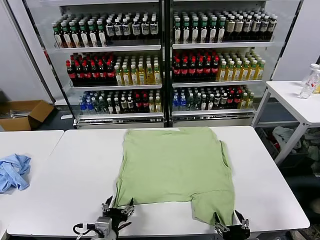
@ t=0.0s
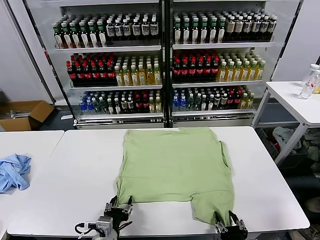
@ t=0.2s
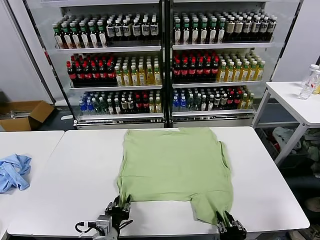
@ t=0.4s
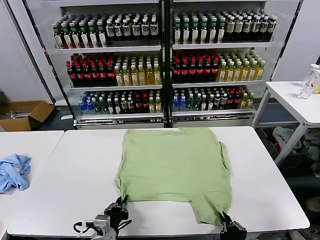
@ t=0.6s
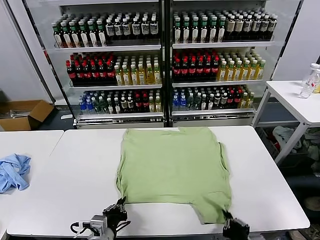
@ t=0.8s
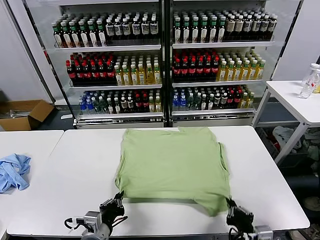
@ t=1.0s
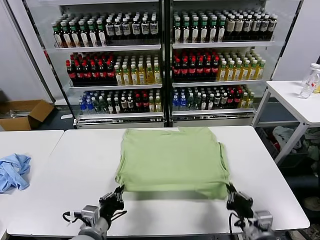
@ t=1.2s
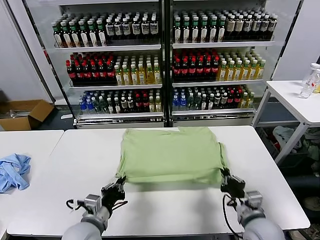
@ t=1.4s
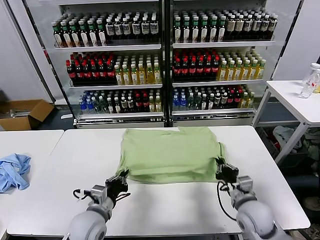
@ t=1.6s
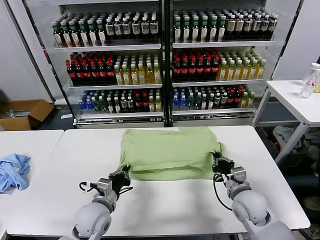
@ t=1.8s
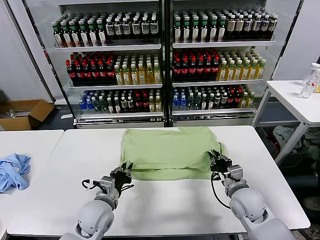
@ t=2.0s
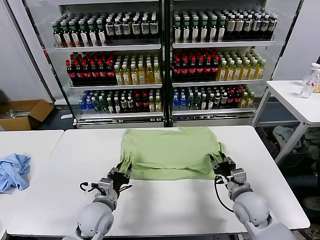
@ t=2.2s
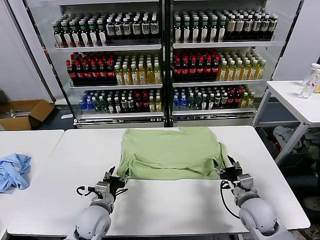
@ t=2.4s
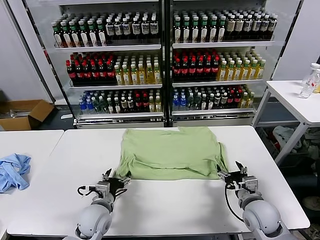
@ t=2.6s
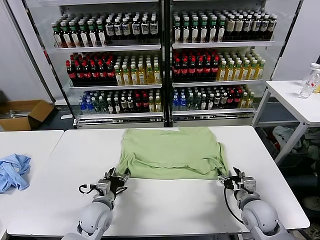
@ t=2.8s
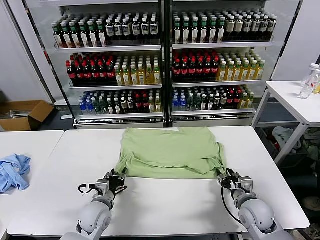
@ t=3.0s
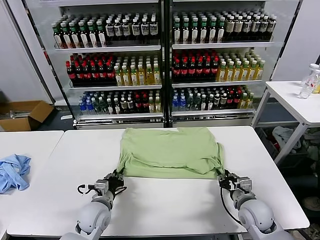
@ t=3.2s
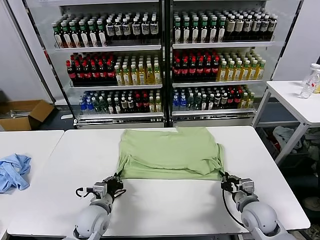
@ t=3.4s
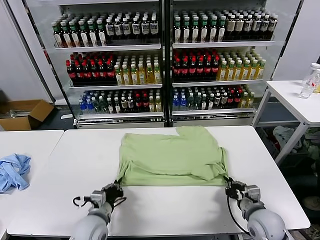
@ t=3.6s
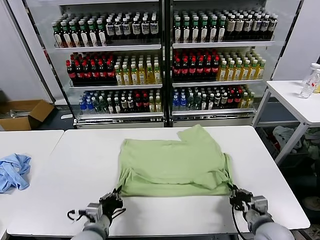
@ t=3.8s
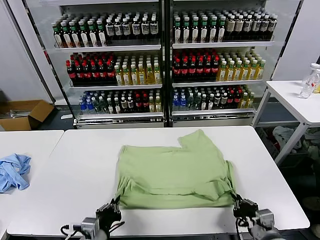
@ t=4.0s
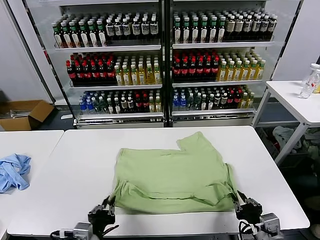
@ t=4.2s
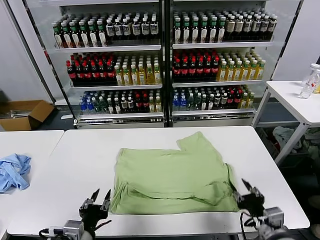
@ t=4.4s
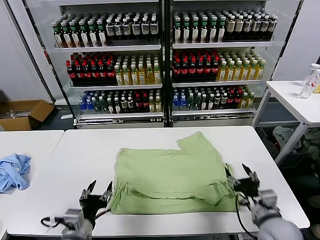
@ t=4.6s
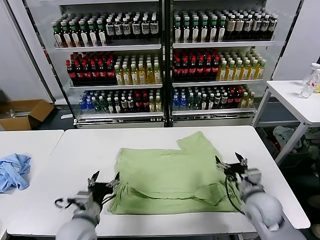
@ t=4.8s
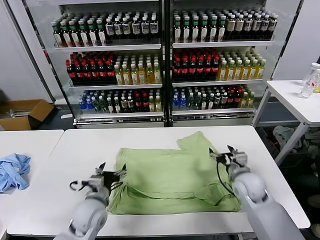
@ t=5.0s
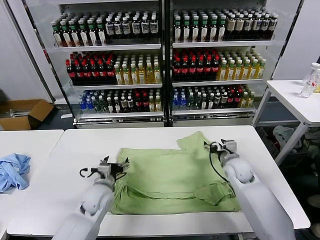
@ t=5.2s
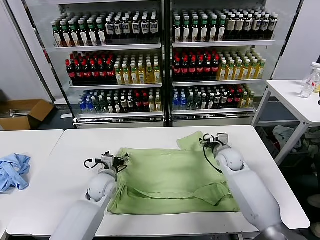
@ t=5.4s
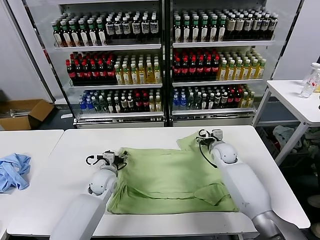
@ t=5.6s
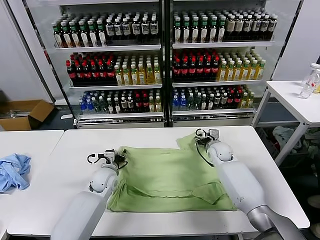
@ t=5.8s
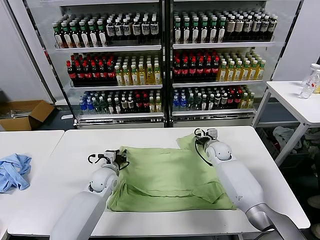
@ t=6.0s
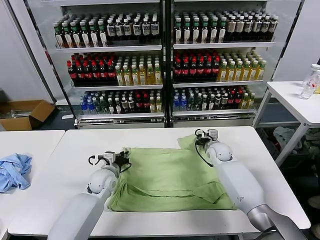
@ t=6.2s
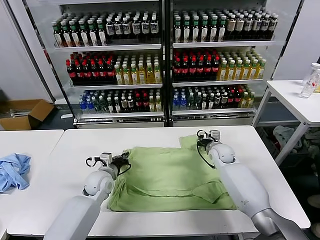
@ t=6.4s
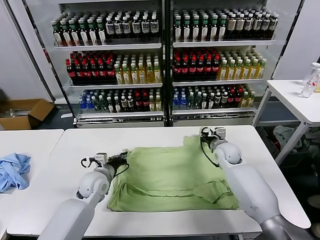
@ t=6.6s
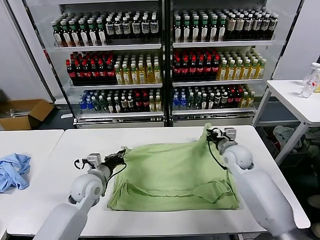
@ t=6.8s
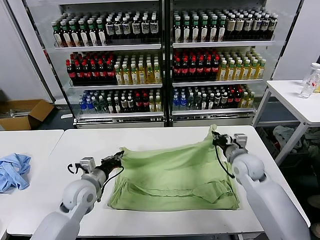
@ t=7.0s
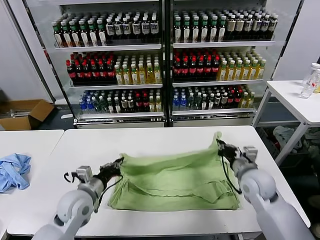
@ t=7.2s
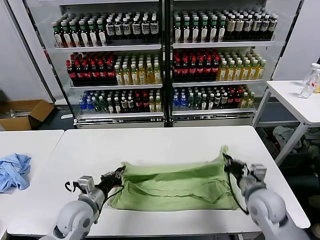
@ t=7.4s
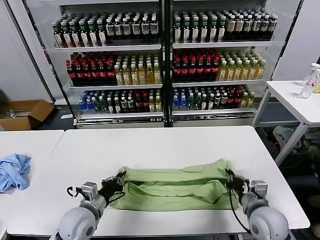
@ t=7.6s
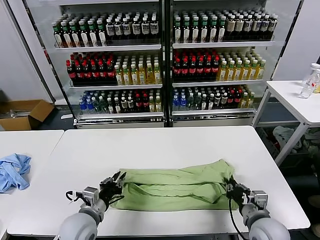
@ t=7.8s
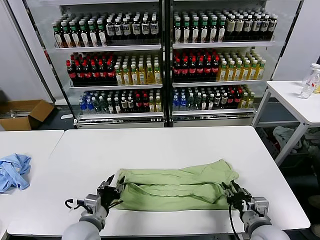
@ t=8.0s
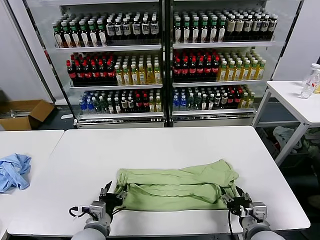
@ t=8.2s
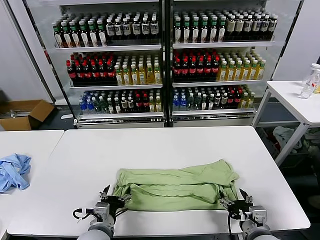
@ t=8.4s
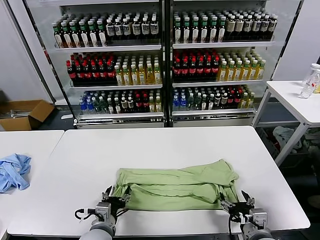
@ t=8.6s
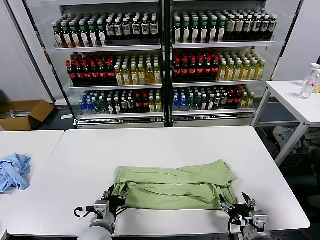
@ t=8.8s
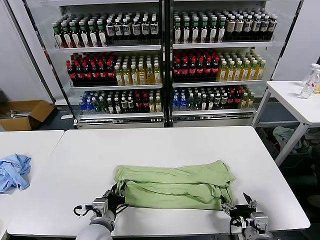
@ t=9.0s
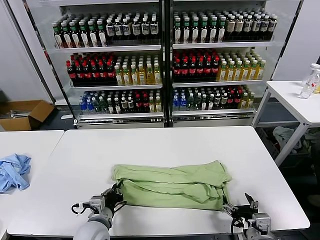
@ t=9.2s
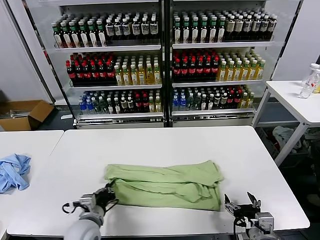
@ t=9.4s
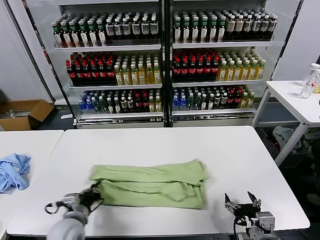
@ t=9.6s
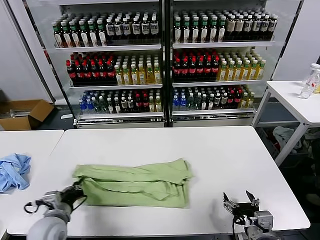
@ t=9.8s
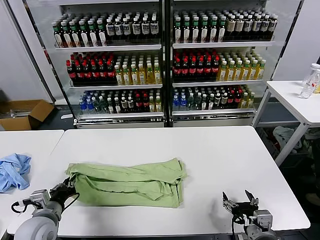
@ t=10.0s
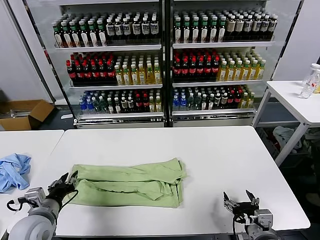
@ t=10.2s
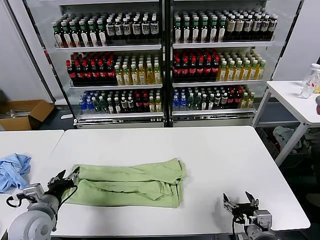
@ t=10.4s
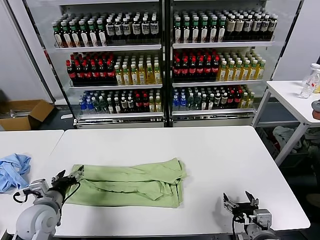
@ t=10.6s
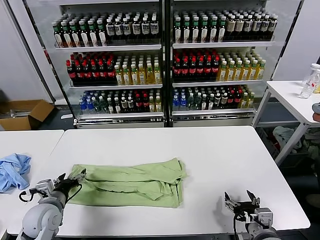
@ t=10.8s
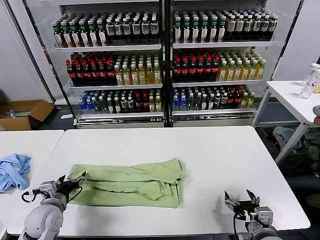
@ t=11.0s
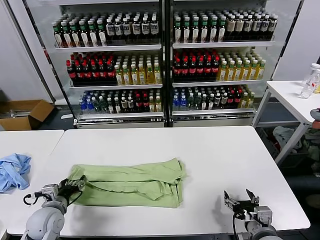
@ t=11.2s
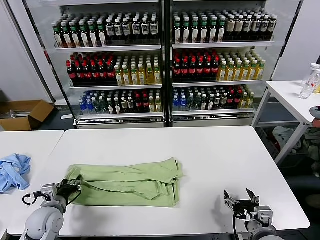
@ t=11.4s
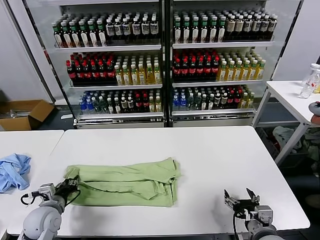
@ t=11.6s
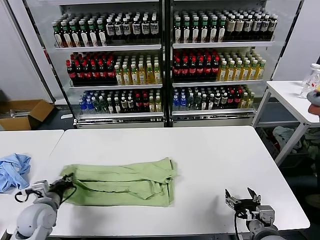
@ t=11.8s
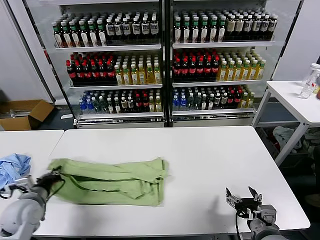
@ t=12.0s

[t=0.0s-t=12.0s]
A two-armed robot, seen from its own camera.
Task of the whole recording: fold and organize the clothes.
Step, t=0.0s to t=0.6s: use both grippers simultaneously to clamp the lower edge of the clothing fabric.
Step, t=0.8s to t=2.6s: use both grippers to drag the lower edge of the fabric forward and fold it over the upper edge.
Step, t=2.8s to t=4.2s: Drag the clothes downward with both gripper.
Step, t=4.4s to t=6.4s: use both grippers simultaneously to clamp the upper edge of the clothing fabric.
Step, t=6.6s to t=8.0s: use both grippers to drag the upper edge of the fabric backward and fold it over the lower edge.
Step, t=8.2s to t=9.2s: use the left gripper to clamp the left edge of the fabric.
t=1.6s to t=3.0s: The right gripper opens. Meanwhile the left gripper travels downward and forward by roughly 10 cm, and opens up.
t=3.0s to t=4.4s: The two grippers go some 15 cm backward and upward. The left gripper closes, then reopens; the right gripper closes, then opens again.
t=4.4s to t=6.0s: The two grippers go about 35 cm forward. The left gripper opens, then closes again, while the right gripper opens, then closes again.
t=6.0s to t=7.6s: The left gripper moves backward, approximately 15 cm, and closes up. Meanwhile the right gripper travels backward by roughly 30 cm, and closes.
t=7.6s to t=9.0s: The left gripper heads to the right, covering roughly 5 cm, and opens; the right gripper is displaced backward by roughly 10 cm, and opens its fingers.
t=9.0s to t=10.4s: The left gripper shifts about 15 cm to the left and upward, and closes, then opens again.
t=10.4s to t=12.0s: The left gripper shifts approximately 5 cm to the left, and closes up.
